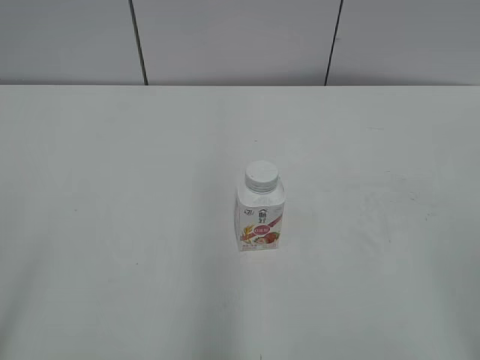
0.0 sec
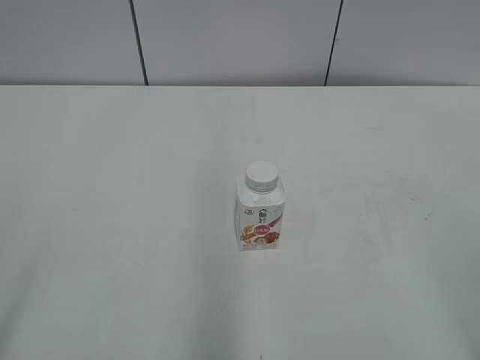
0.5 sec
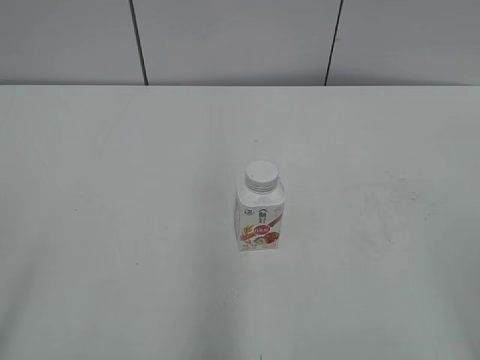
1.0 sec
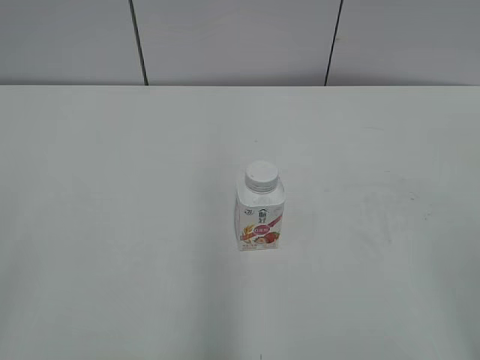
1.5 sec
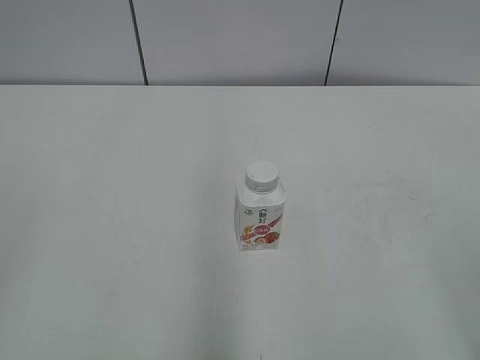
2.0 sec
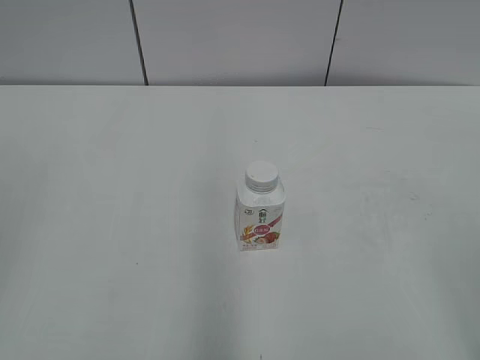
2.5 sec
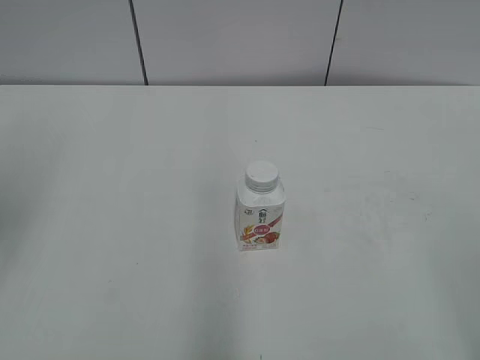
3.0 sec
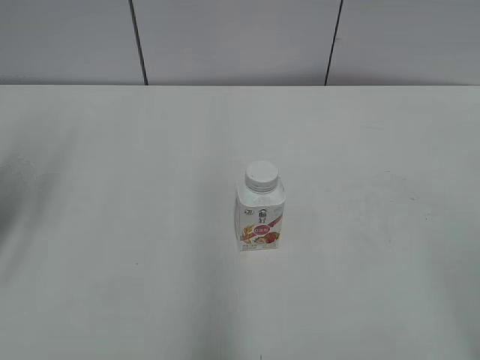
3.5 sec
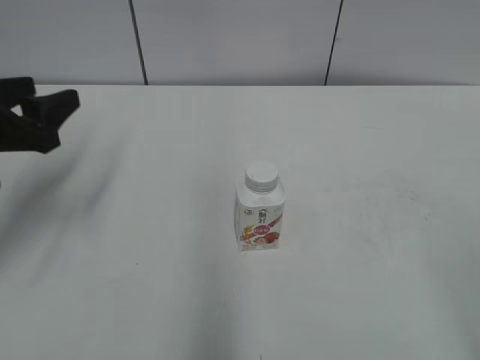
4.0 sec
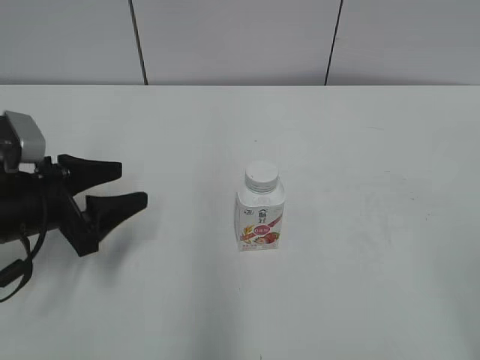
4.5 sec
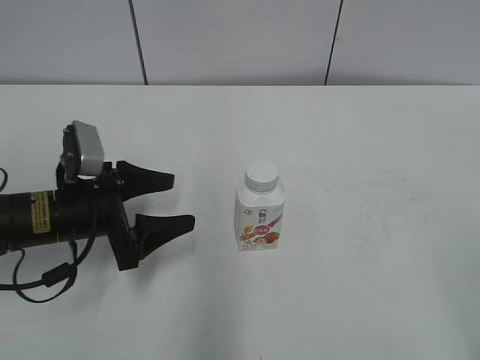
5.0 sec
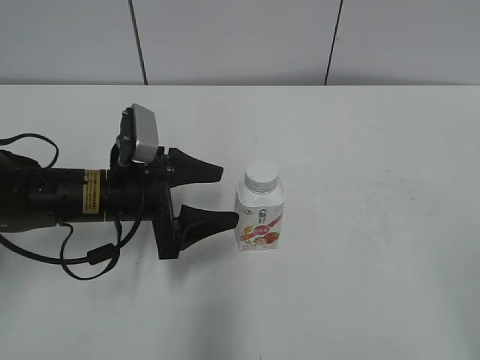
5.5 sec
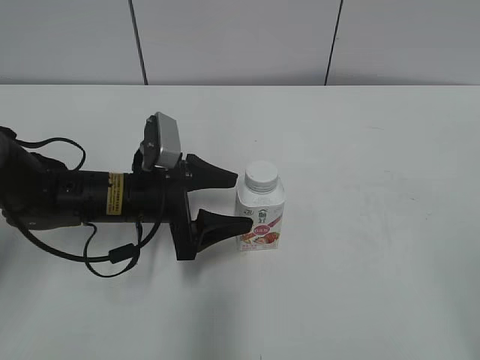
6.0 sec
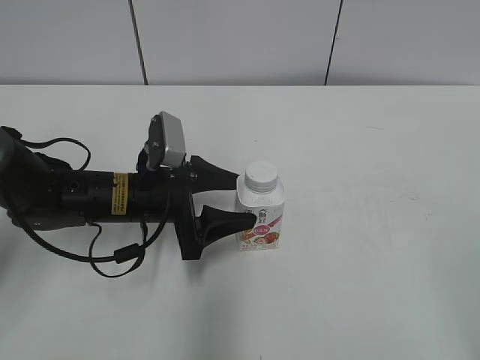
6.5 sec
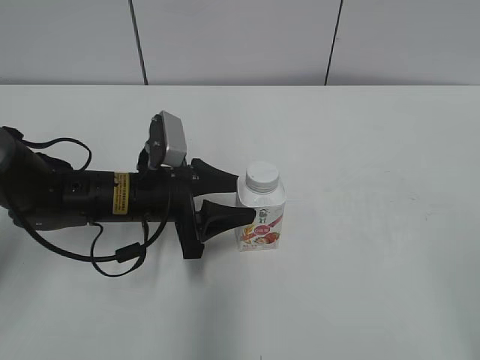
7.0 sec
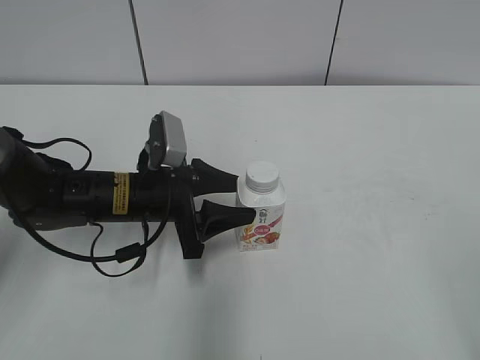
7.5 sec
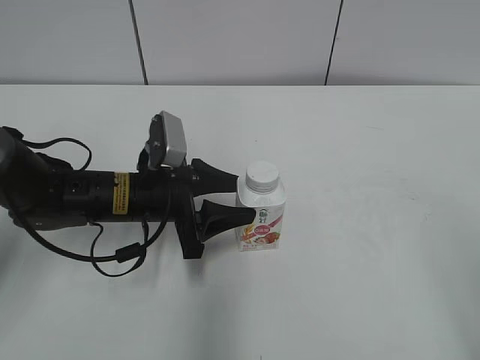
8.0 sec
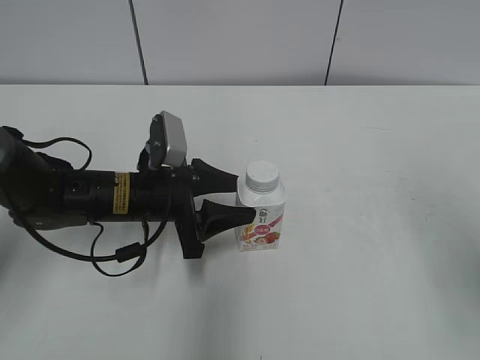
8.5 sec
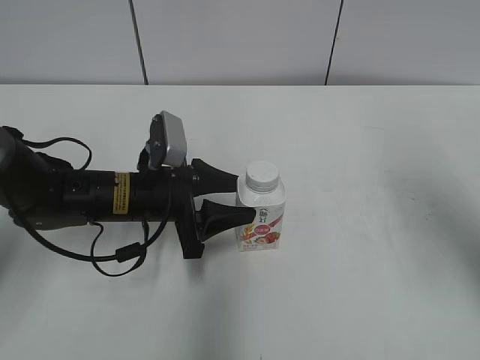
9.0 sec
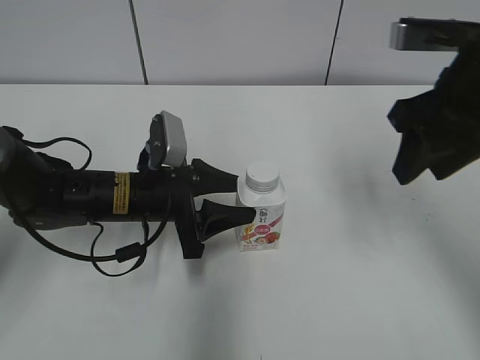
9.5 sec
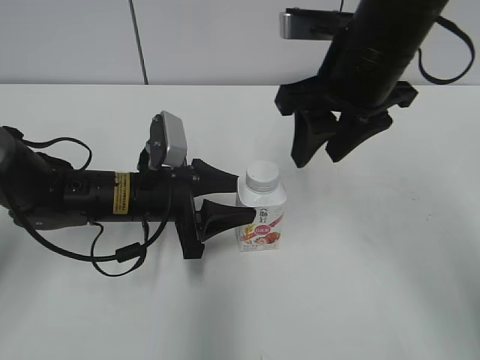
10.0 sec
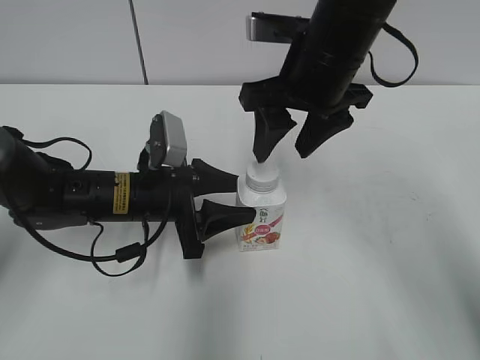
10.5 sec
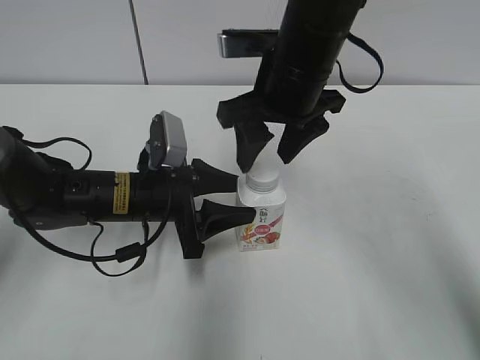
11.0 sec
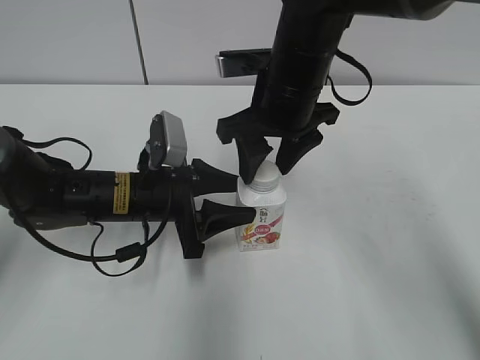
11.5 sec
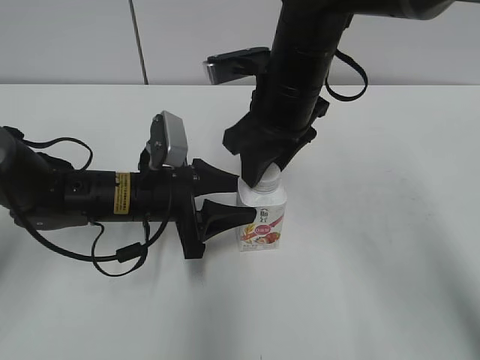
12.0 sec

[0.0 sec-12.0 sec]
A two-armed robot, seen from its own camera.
Step, 0.0 sec to 7.0 sec: Grab the Yili Changqing with the left hand.
2.0 sec to 4.0 sec: The left gripper travels forward by approximately 25 cm.
4.0 sec to 6.0 sec: The left gripper shifts about 20 cm to the right and downward, and opens its fingers.
6.0 sec to 8.0 sec: The left gripper closes up.
8.0 sec to 10.0 sec: The right gripper travels forward and to the left by roughly 35 cm, and closes up.
10.0 sec to 12.0 sec: The right gripper goes approximately 10 cm to the left and downward, and opens, then closes again.

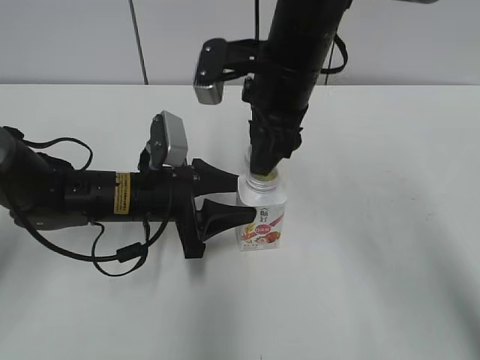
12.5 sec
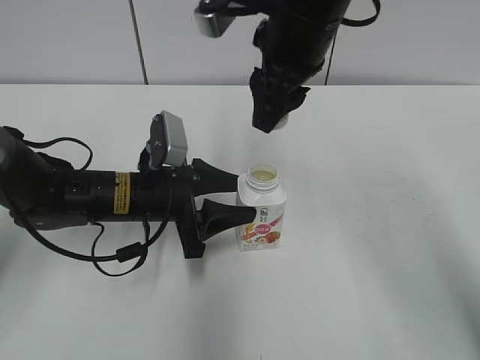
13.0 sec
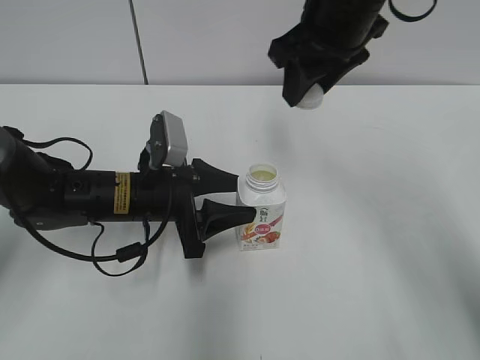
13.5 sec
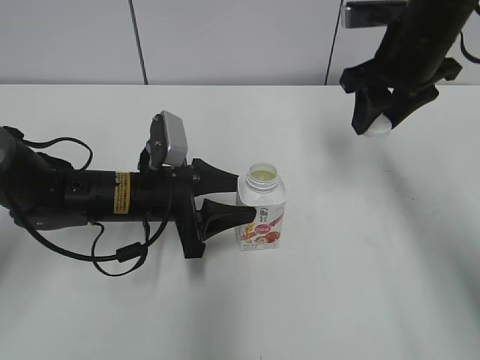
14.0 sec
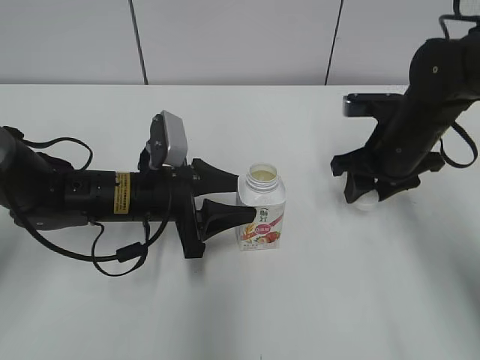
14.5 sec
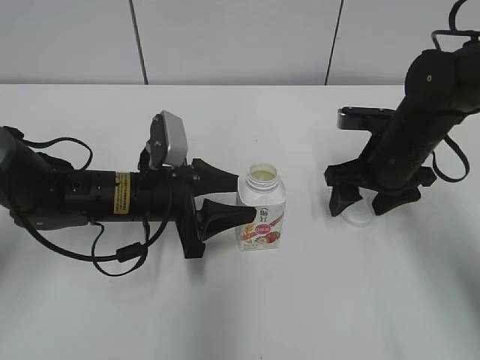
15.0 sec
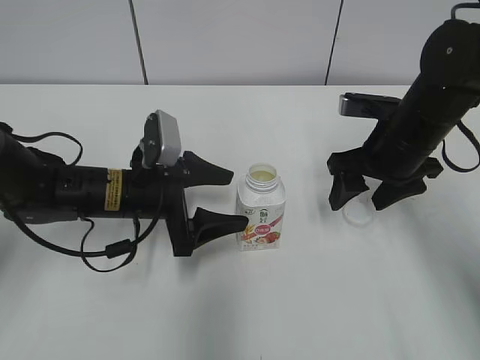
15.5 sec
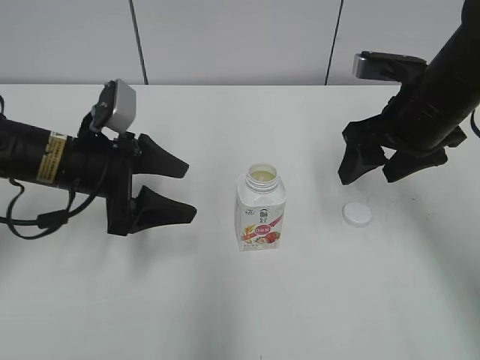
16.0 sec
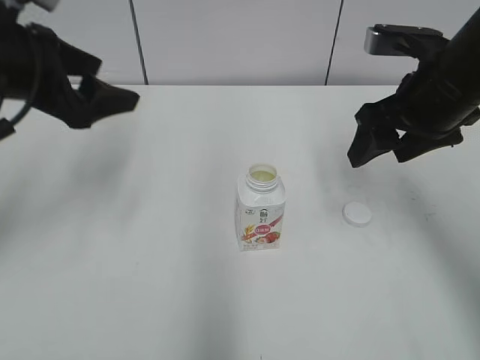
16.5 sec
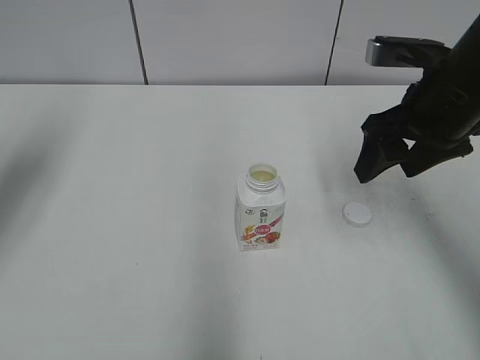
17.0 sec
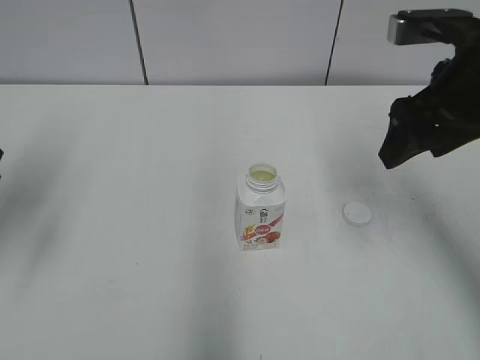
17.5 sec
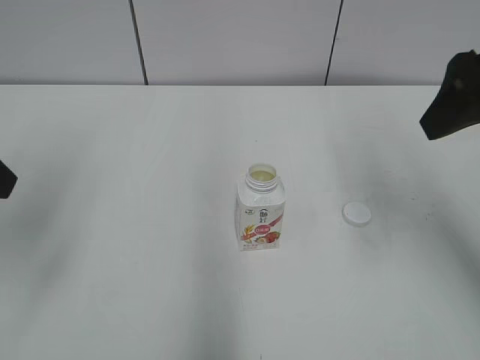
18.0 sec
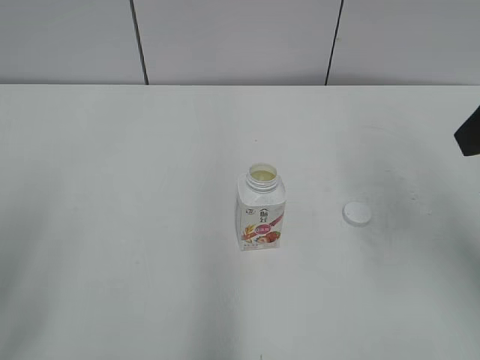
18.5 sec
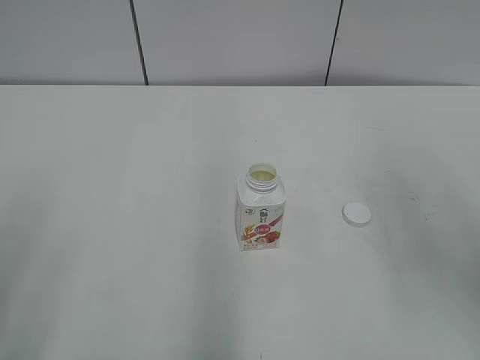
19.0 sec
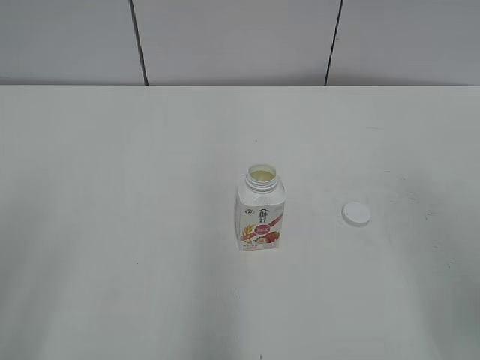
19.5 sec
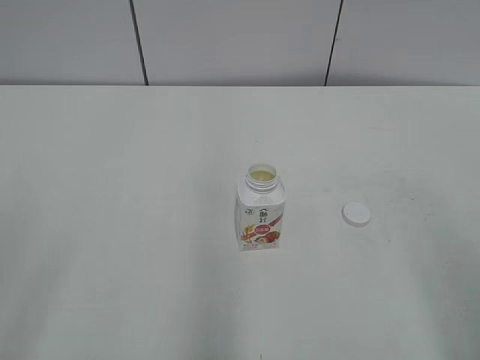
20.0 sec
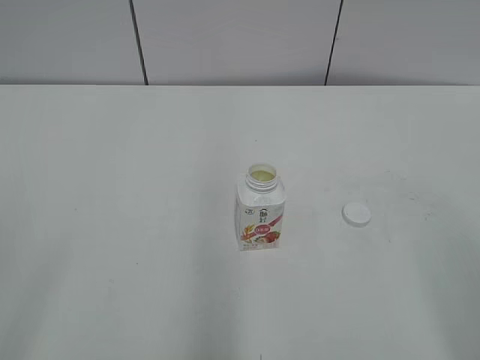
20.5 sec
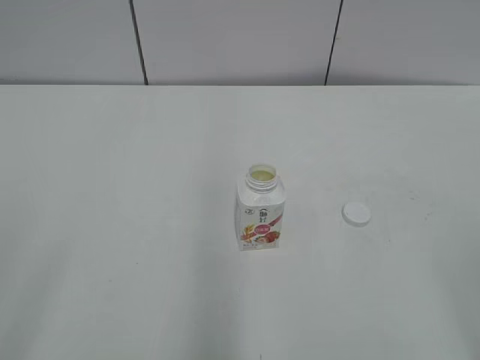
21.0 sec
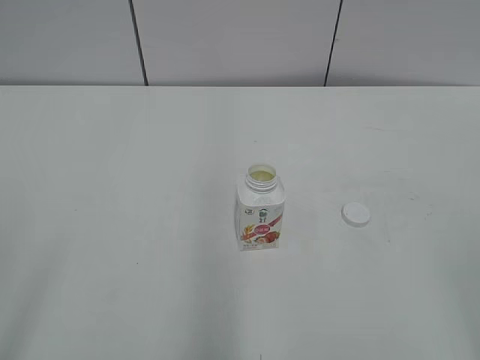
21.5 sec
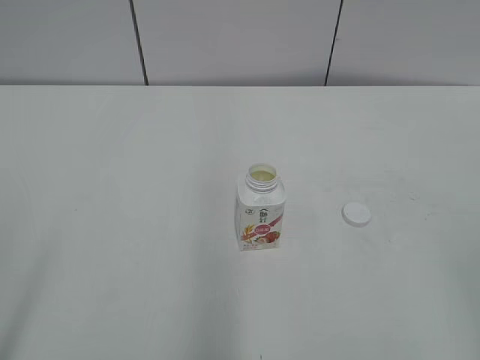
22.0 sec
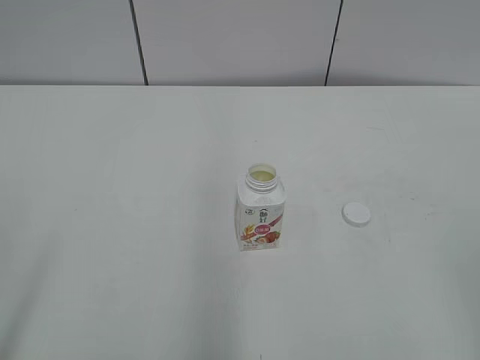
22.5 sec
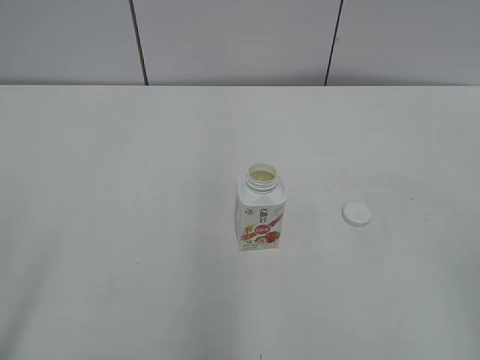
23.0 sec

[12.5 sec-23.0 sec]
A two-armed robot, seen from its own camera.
Step, 13.0 sec to 14.5 sec: Place the bottle cap on the right.
12.5 sec to 14.5 sec: The right gripper goes some 15 cm to the right and downward.
14.5 sec to 16.5 sec: The left gripper travels upward and to the left by some 20 cm, and opens. The right gripper moves upward, about 10 cm, and opens its fingers.
16.5 sec to 19.0 sec: The left gripper moves backward, approximately 25 cm. Meanwhile the right gripper travels backward and upward by about 20 cm.
19.0 sec to 21.0 sec: The right gripper heads backward, covering about 15 cm.
